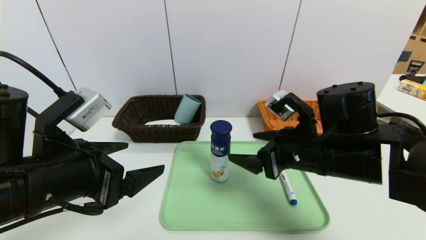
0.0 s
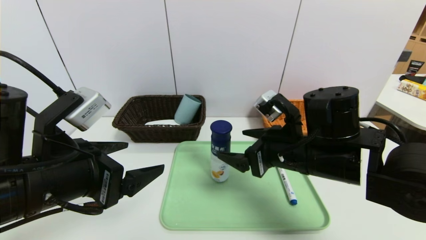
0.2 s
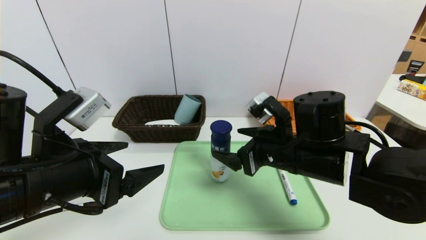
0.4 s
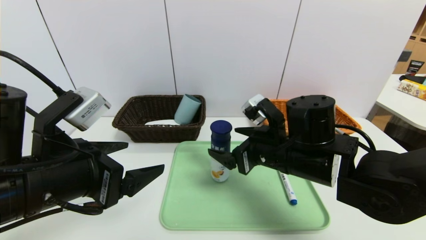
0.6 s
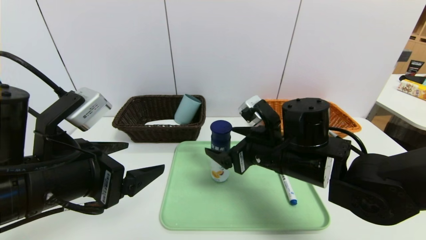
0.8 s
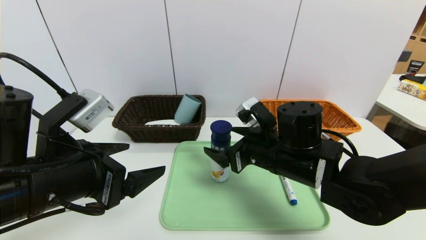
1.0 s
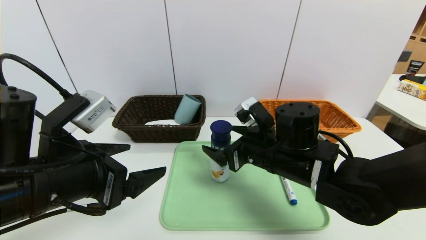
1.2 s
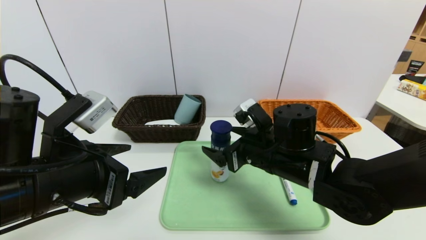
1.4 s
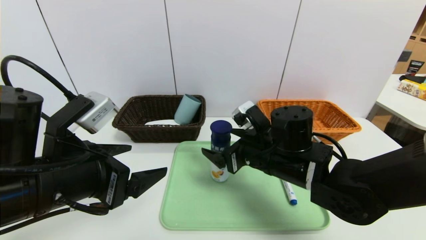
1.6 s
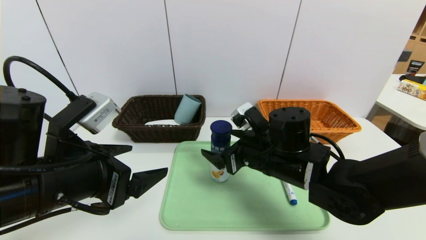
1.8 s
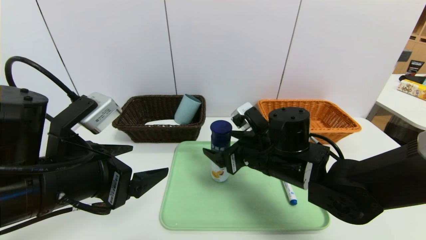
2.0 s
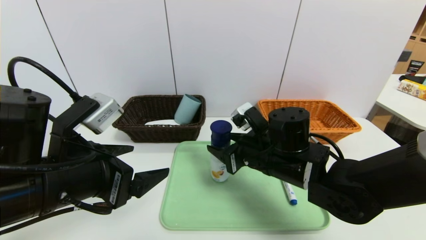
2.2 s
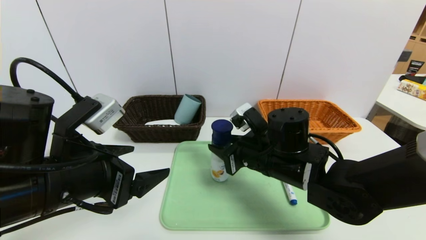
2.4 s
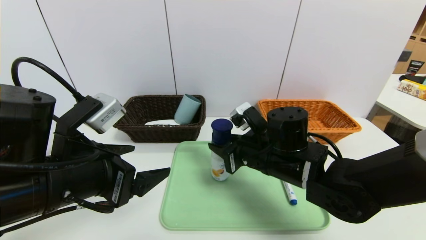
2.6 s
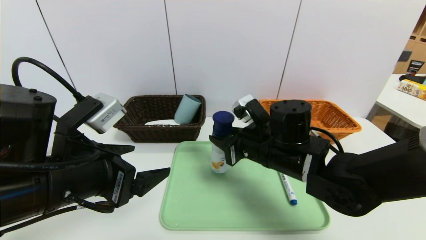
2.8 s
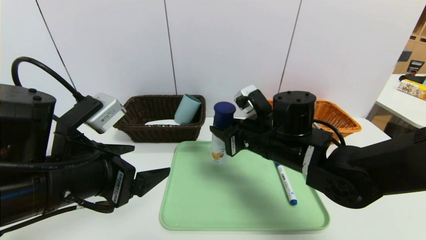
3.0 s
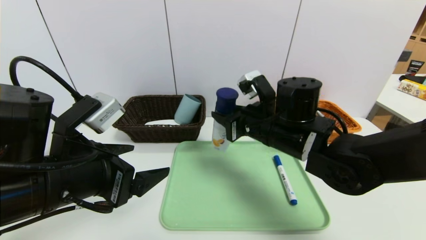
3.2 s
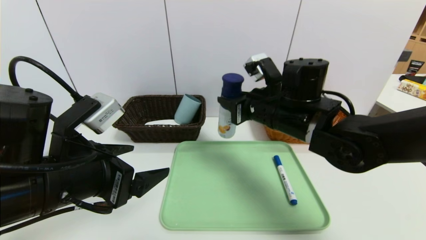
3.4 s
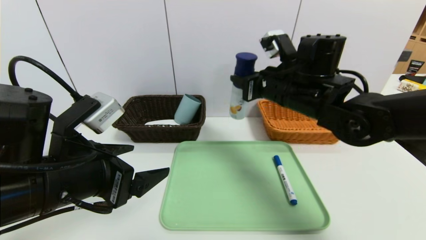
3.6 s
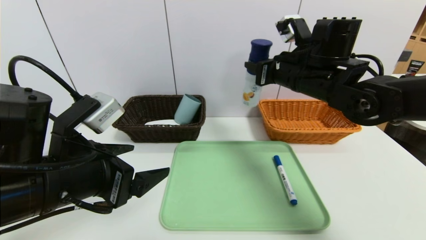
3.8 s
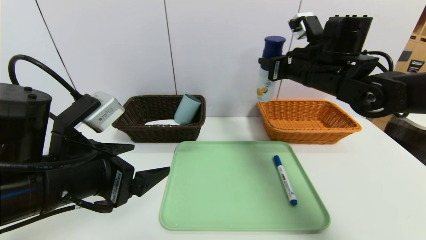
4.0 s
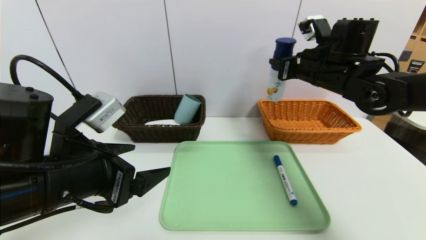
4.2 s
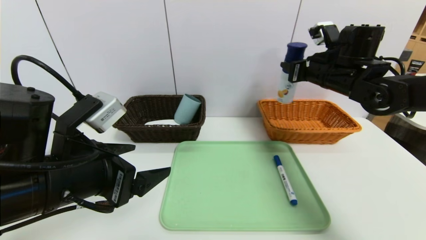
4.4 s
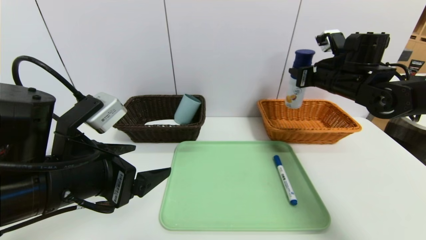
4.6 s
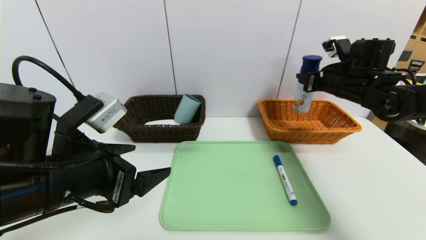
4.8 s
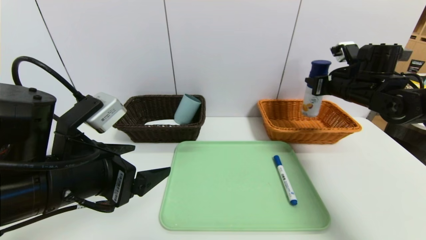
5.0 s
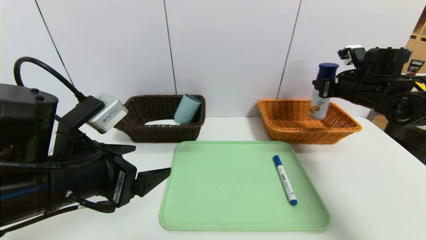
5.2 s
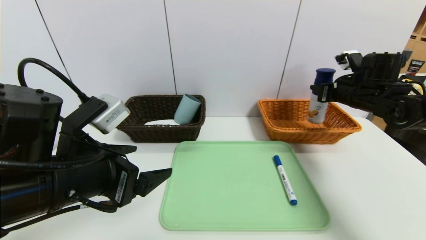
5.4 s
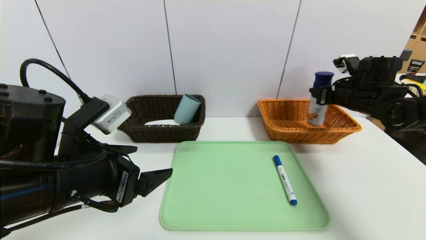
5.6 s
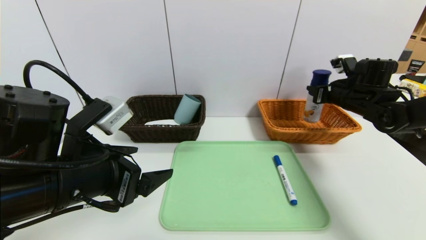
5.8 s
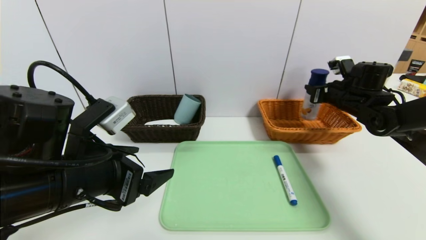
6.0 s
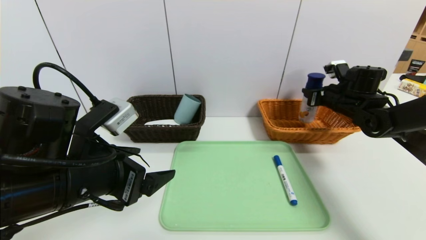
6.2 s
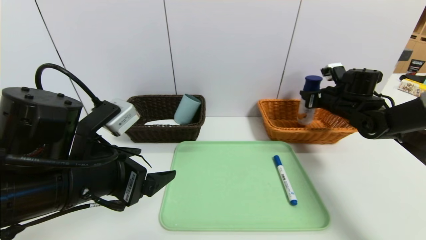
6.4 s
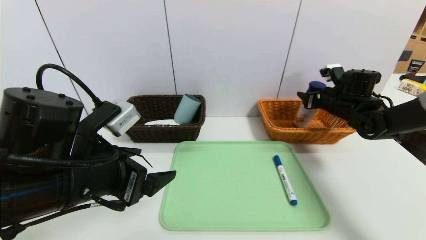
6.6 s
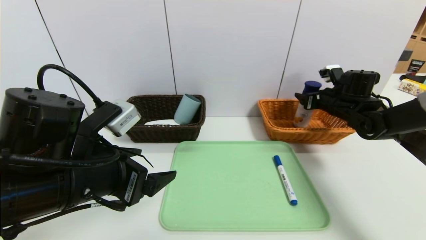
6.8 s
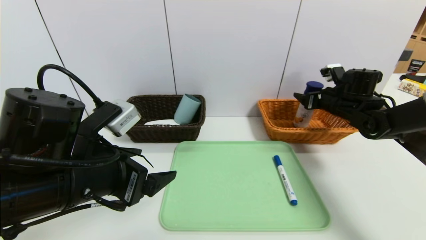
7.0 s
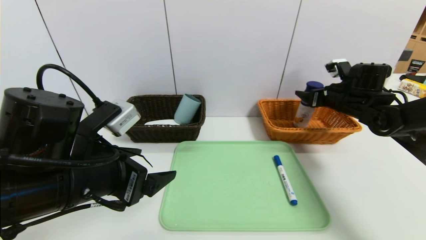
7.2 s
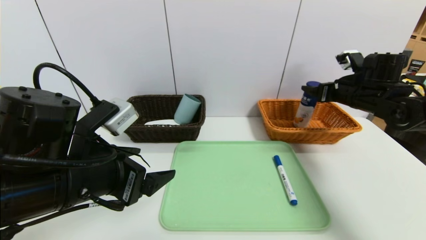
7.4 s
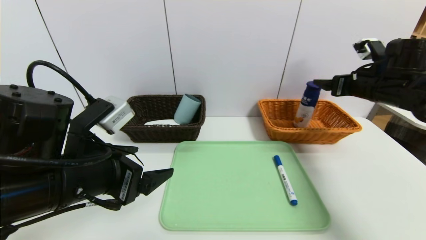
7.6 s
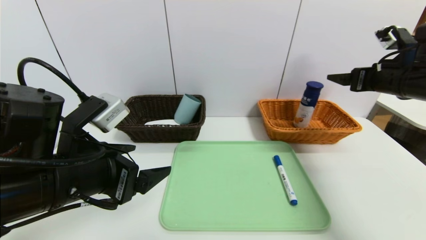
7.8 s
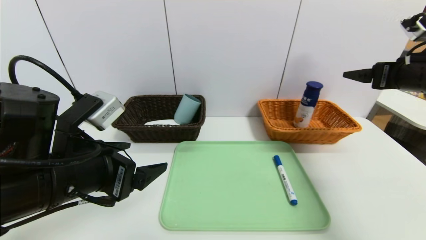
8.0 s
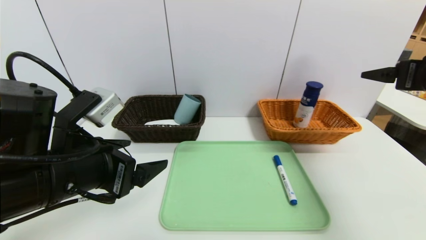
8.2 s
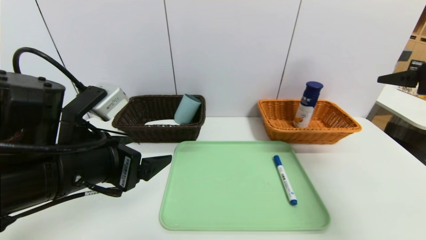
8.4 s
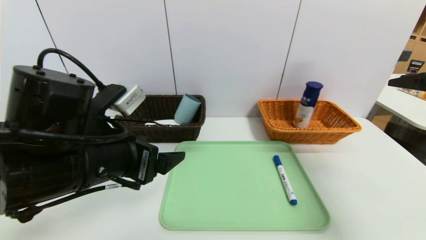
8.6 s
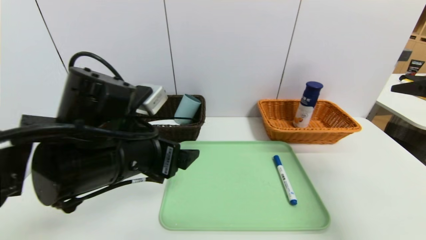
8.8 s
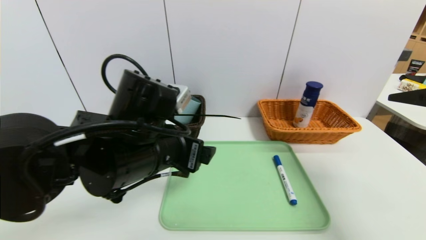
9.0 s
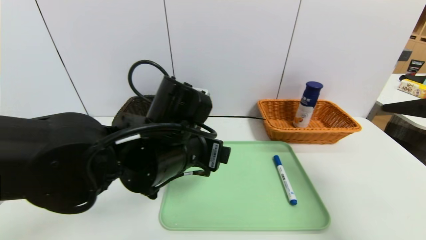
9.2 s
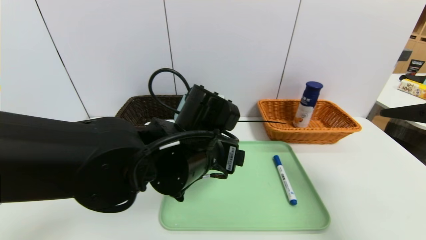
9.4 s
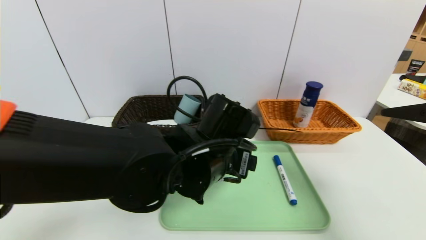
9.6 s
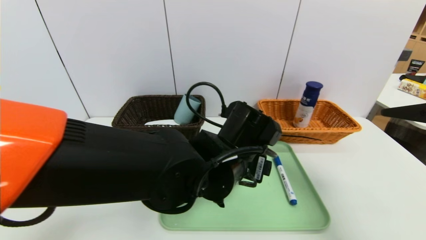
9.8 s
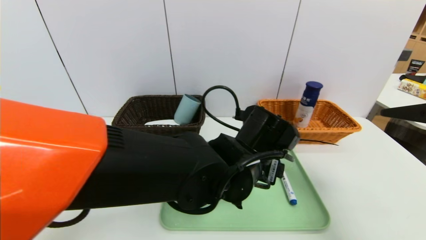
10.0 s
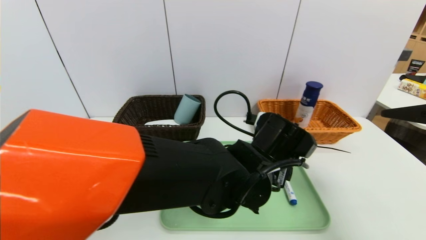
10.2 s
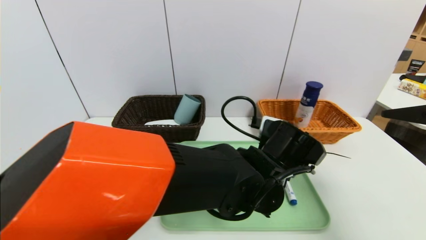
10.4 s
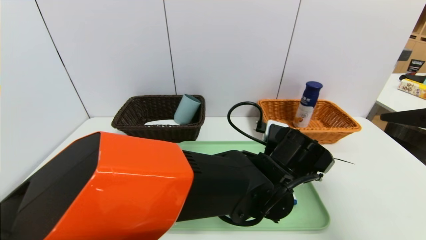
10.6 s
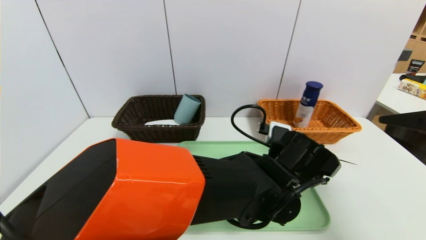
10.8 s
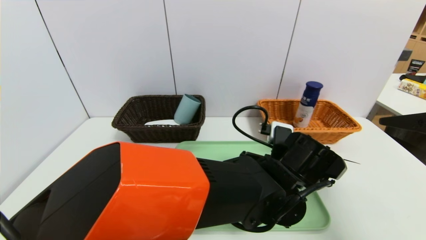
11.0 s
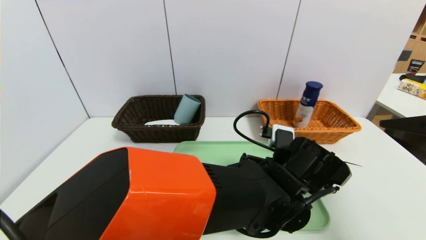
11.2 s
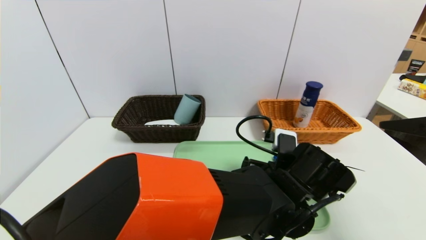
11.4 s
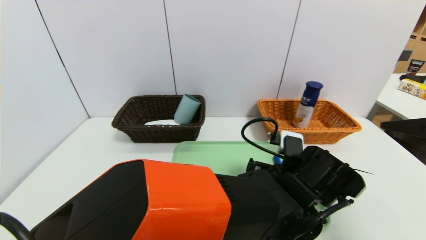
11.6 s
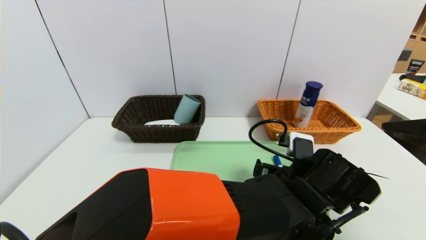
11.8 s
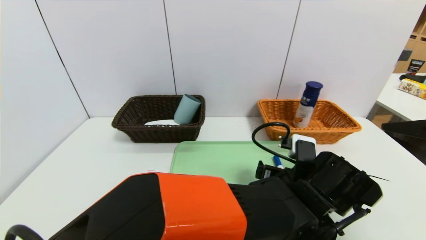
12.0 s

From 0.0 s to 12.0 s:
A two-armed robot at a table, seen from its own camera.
Task of the whole recording: place the food in the right basket with the right gripper, and place the non food items in the left basket with the left gripper.
Step, from 0.0 s to 7.4 s: Grasp the yogurt and put it in the right basket.
From 0.0 s to 1.6 s: The right gripper shifts roughly 5 cm to the left.
From 1.6 s to 3.0 s: The right gripper closes up.
From 3.0 s to 4.4 s: The right gripper is displaced to the right, forward and upward by about 20 cm.
From 4.4 s to 6.0 s: The right gripper goes some 10 cm to the right and downward.
From 6.0 s to 7.6 s: The right gripper is displaced backward and upward by approximately 10 cm, and opens.
From 7.6 s to 9.0 s: The right gripper goes some 20 cm backward. The left gripper heads to the right, covering approximately 10 cm.
From 9.0 s to 10.4 s: The left gripper is displaced to the right and downward by some 20 cm.
From 10.4 s to 12.0 s: The left gripper moves to the right, some 5 cm.

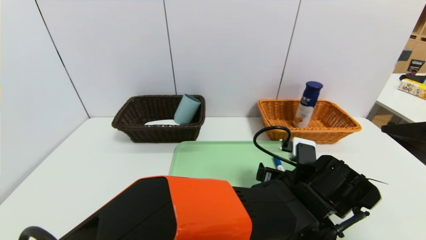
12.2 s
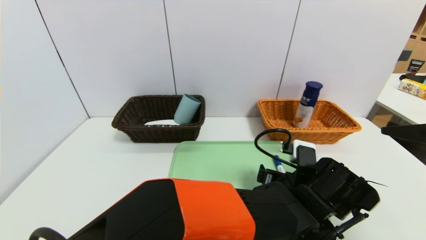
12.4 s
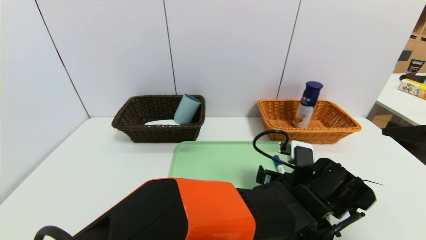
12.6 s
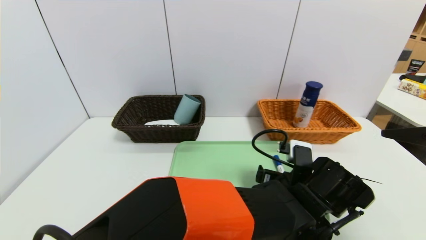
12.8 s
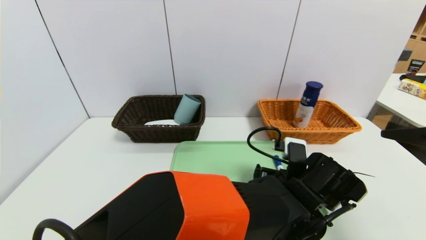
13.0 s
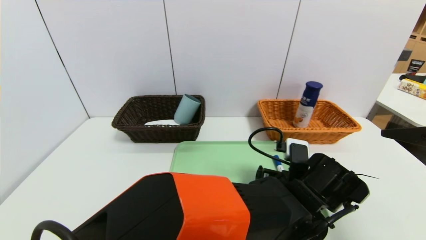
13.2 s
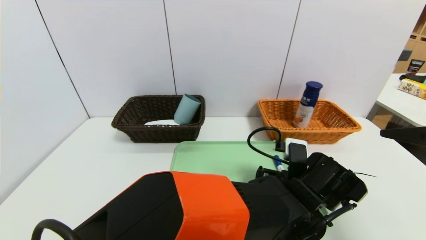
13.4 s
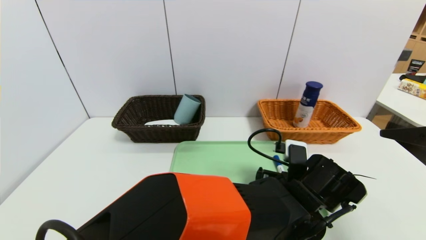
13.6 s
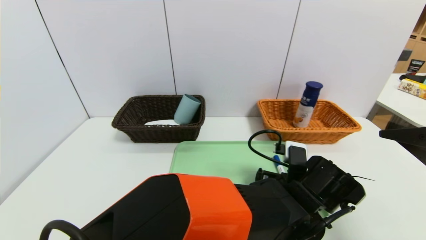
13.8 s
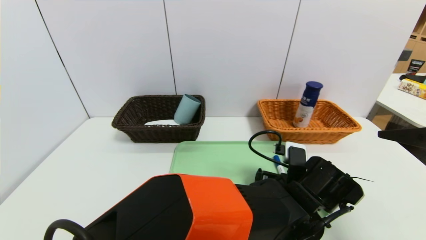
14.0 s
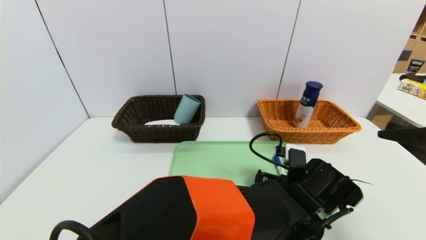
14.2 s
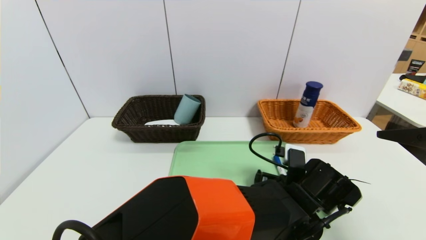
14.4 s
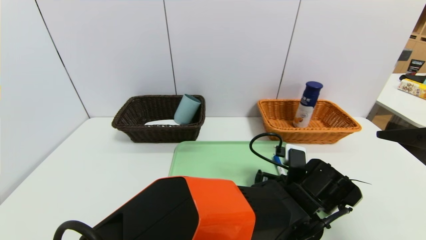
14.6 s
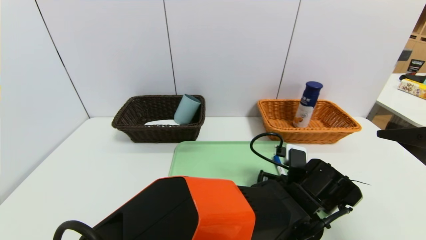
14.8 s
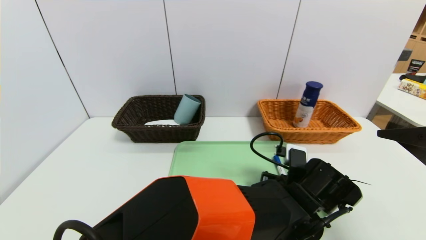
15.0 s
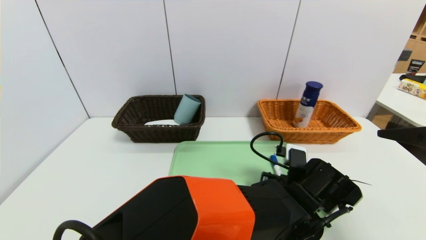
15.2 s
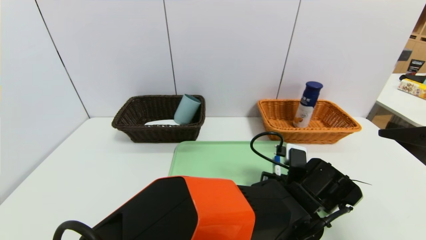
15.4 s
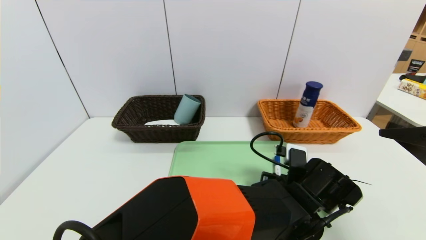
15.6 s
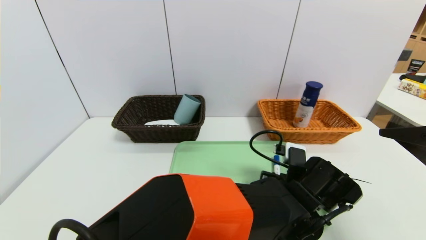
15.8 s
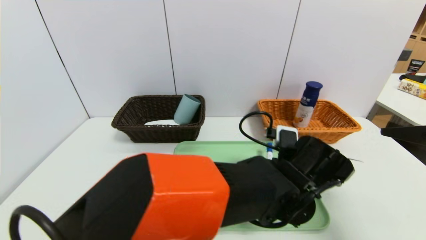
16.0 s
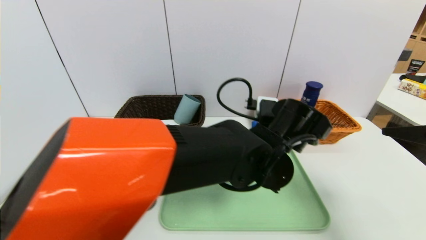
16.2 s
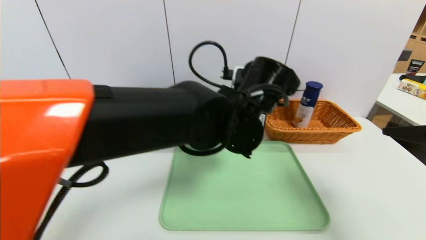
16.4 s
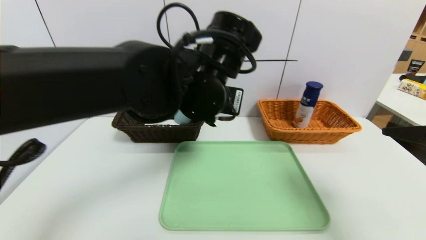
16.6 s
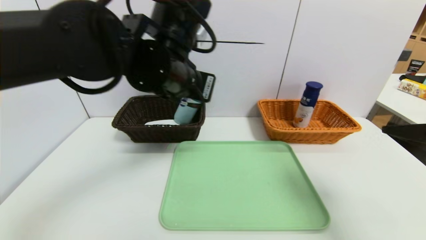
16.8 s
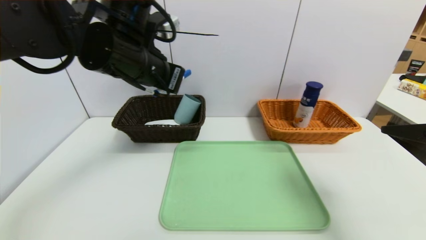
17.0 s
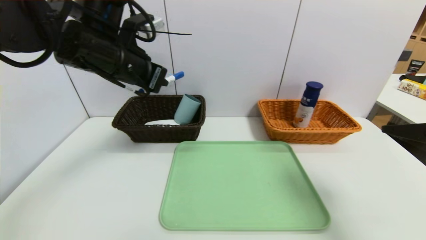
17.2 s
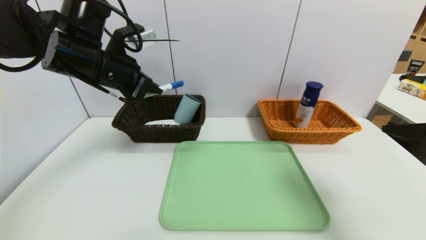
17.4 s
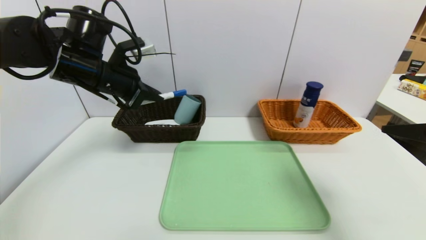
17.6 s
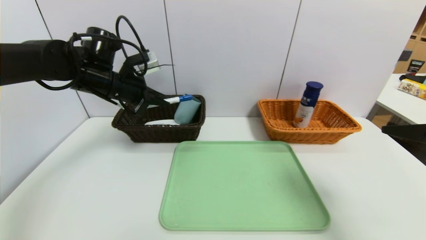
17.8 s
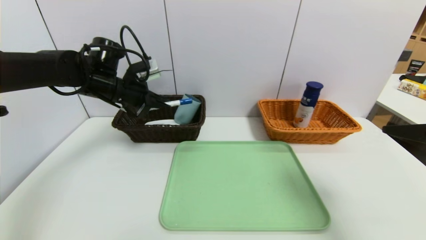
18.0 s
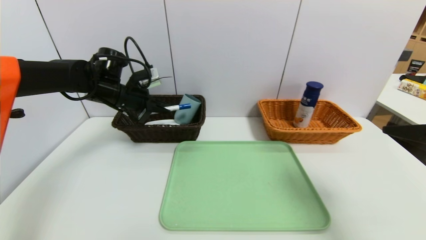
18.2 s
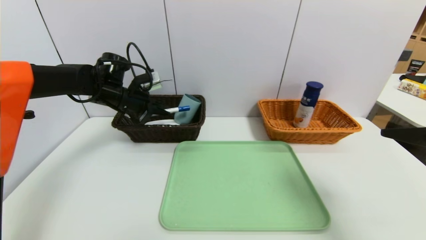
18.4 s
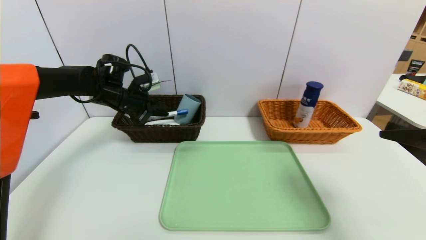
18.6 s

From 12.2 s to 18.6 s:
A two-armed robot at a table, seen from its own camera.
Task of the whole recording: place the food in the right basket with the right gripper, and place the non food items in the left basket with the left gripper.
From 12.2 s to 13.8 s: There are only small adjustments of the grippers.
From 13.8 s to 15.4 s: The left gripper closes up.
From 15.4 s to 17.0 s: The left gripper moves to the left and upward, approximately 35 cm.
From 17.0 s to 18.6 s: The left gripper shifts about 25 cm forward, downward and to the left.
